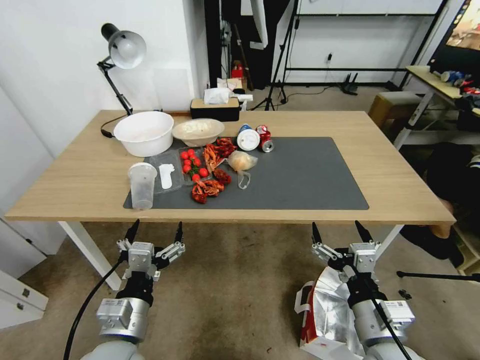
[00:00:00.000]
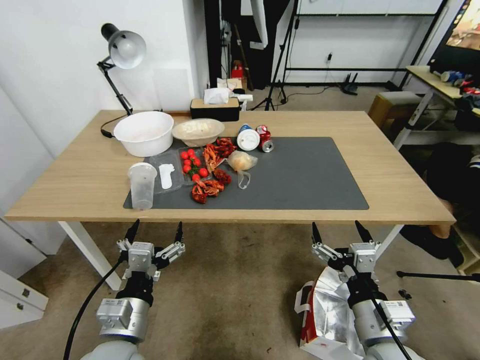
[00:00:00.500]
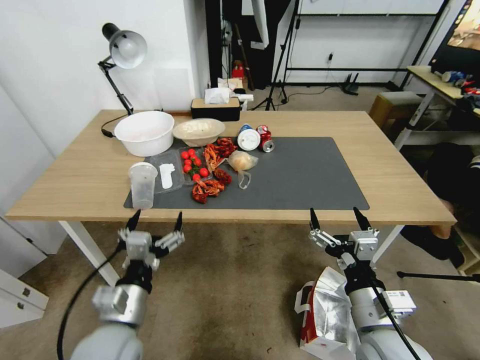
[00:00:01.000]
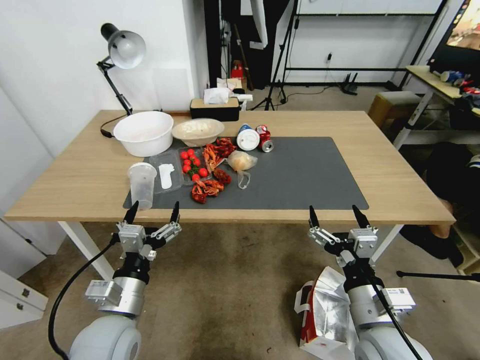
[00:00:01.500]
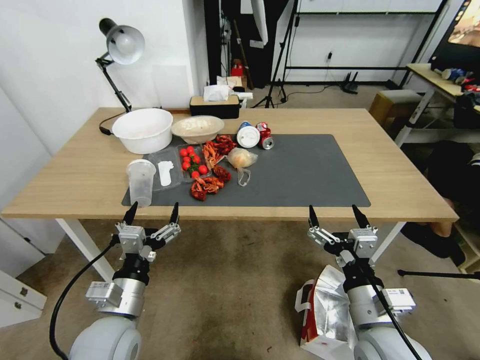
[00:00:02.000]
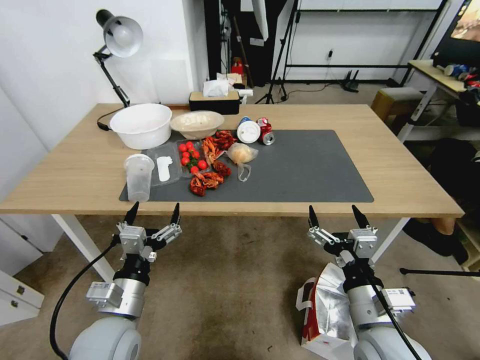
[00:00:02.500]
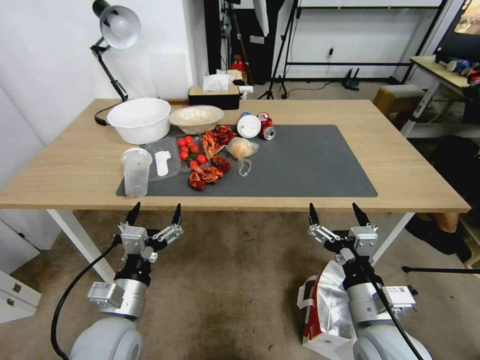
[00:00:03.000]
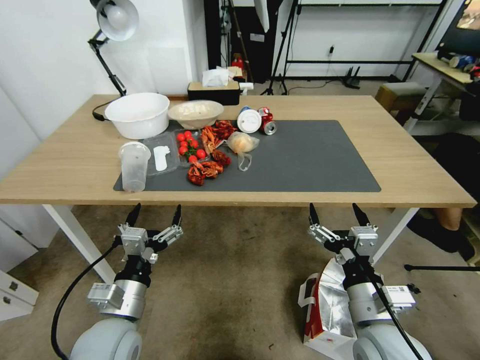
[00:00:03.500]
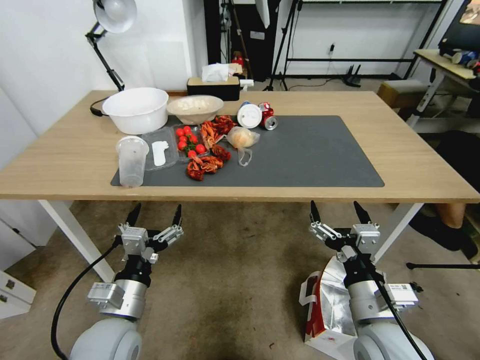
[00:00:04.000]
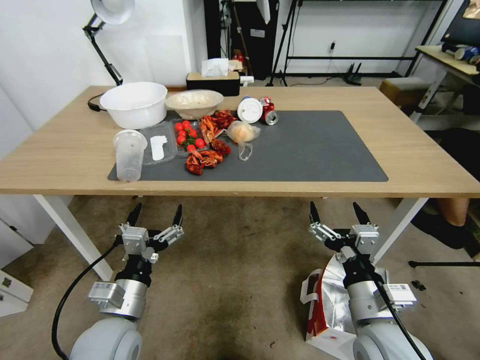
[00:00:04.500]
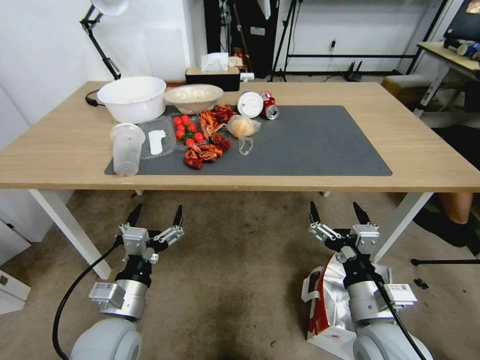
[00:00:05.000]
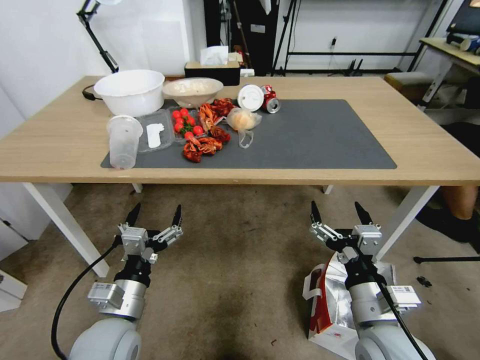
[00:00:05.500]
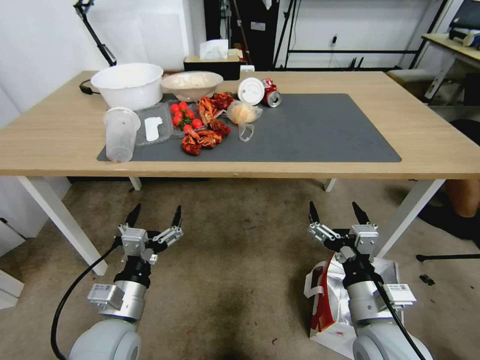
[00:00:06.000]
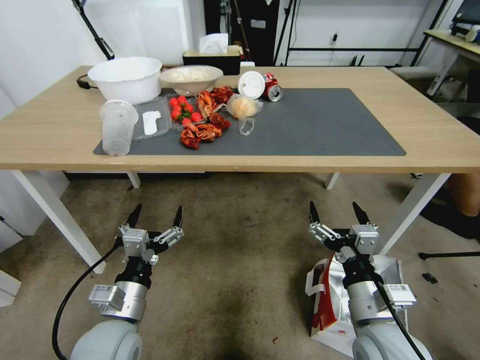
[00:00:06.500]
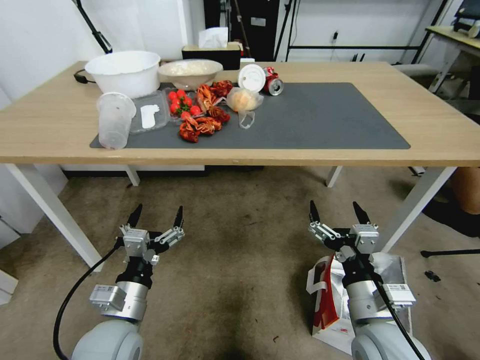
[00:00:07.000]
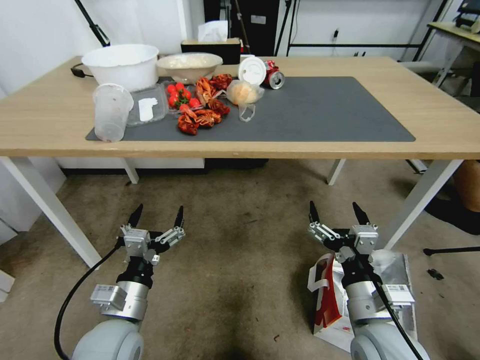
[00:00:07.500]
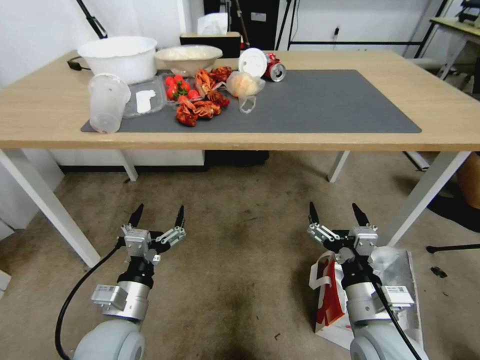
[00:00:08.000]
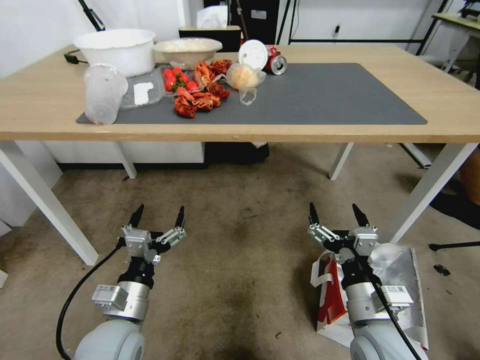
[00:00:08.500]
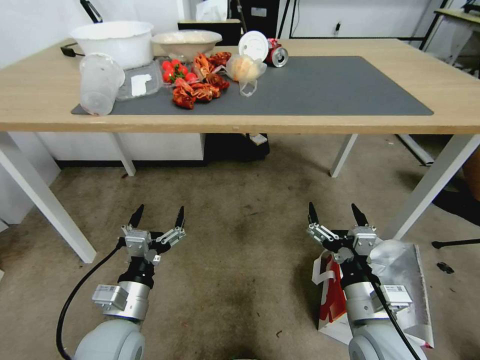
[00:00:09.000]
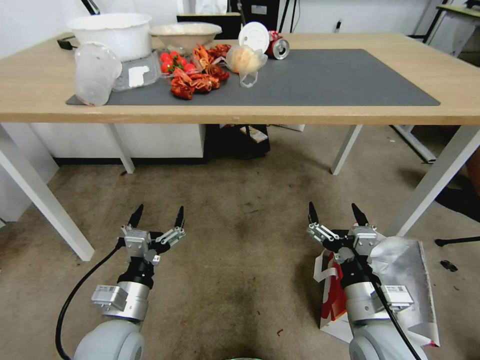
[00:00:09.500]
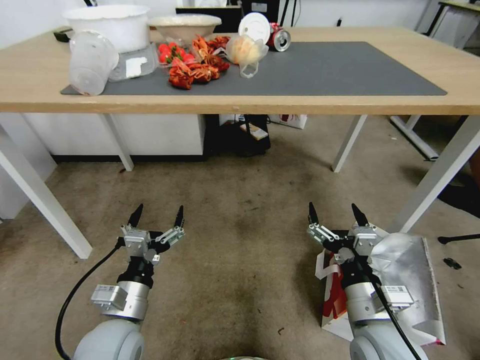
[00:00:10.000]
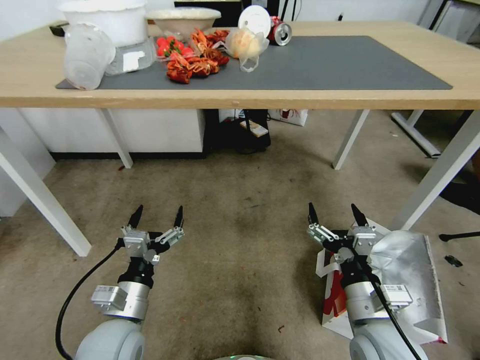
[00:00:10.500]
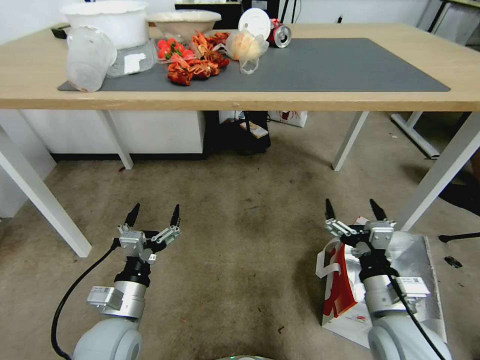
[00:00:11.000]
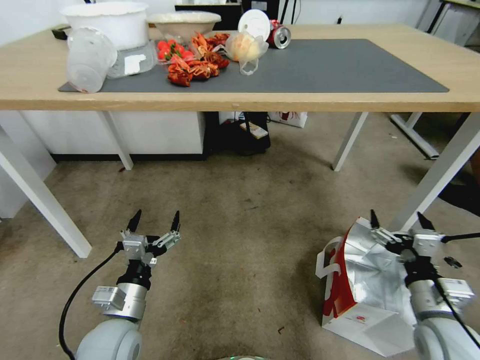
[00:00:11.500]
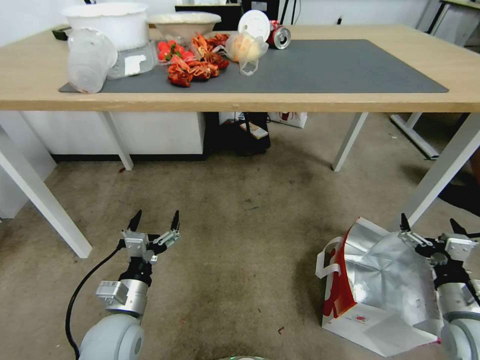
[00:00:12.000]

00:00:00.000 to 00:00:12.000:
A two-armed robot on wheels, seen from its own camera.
Task of the whole recording: Pick up the food delivery bag from the floor and place it on the table.
00:00:10.000 to 00:00:12.000: The right gripper shifts roughly 20 cm to the right.

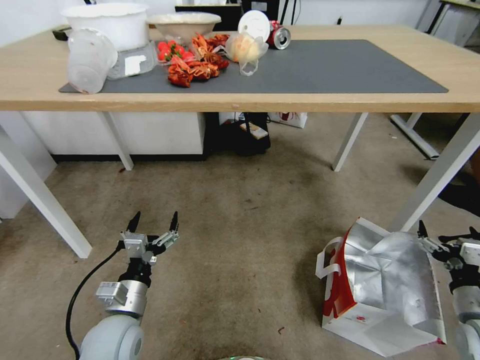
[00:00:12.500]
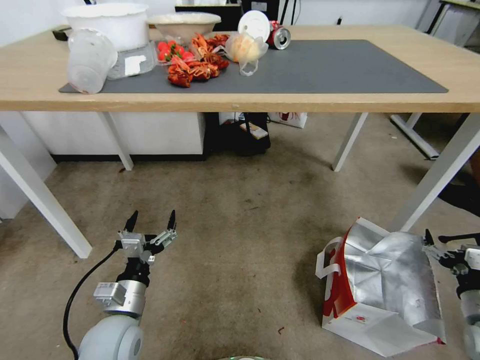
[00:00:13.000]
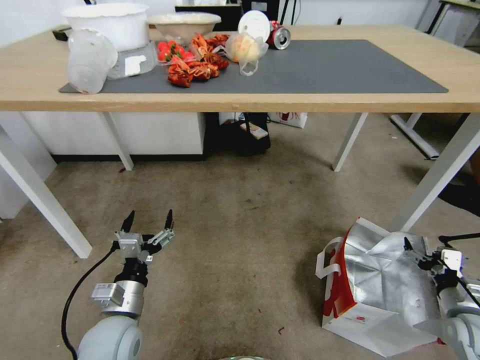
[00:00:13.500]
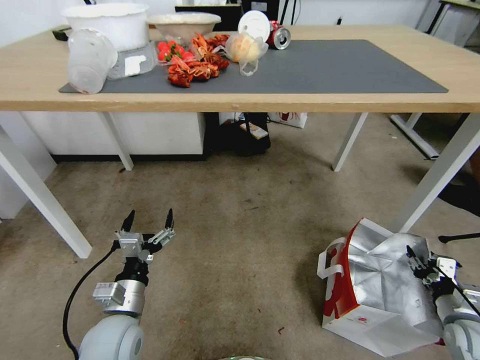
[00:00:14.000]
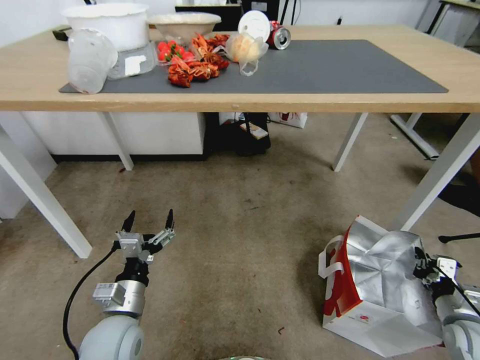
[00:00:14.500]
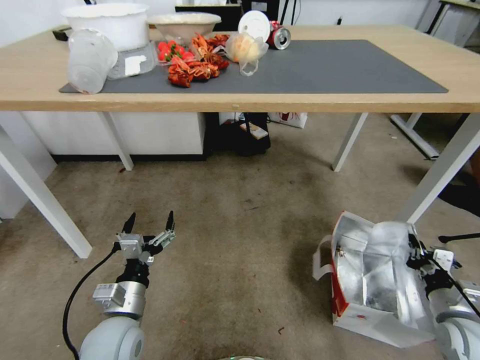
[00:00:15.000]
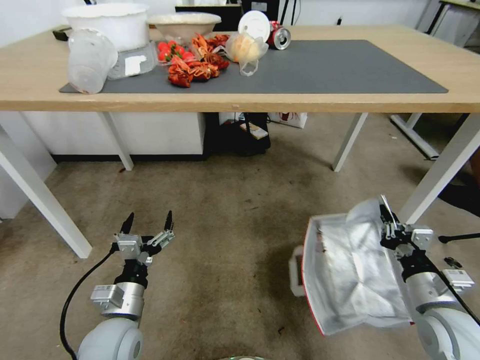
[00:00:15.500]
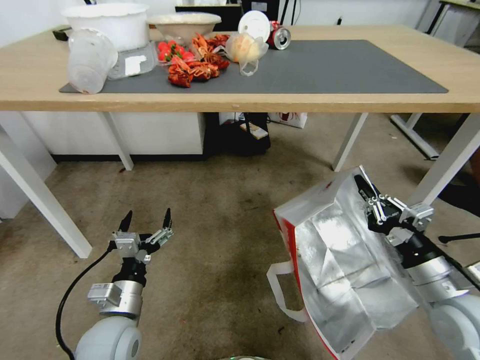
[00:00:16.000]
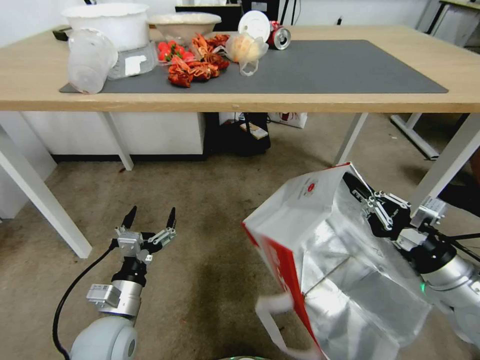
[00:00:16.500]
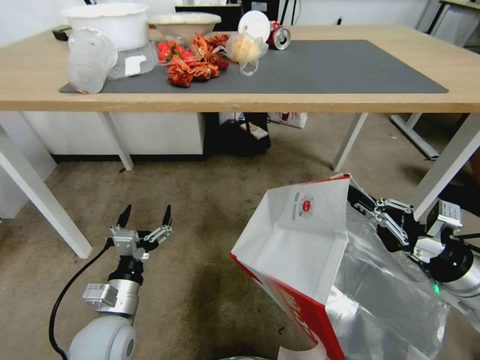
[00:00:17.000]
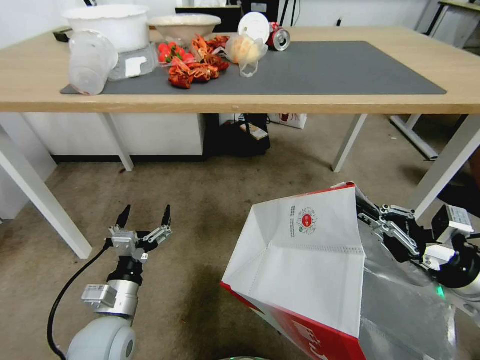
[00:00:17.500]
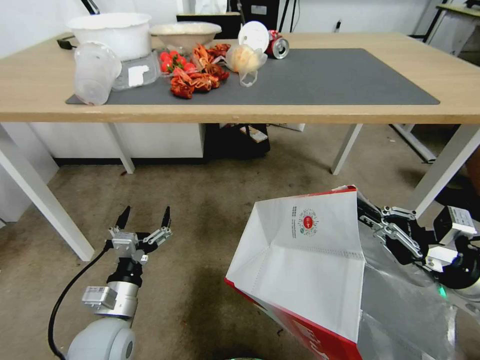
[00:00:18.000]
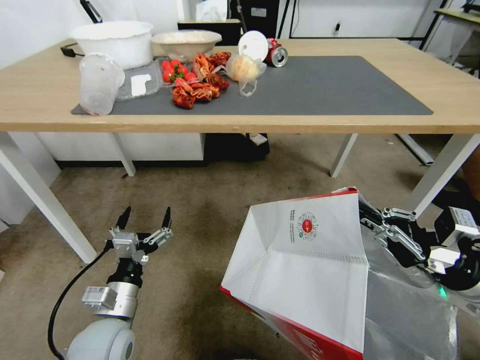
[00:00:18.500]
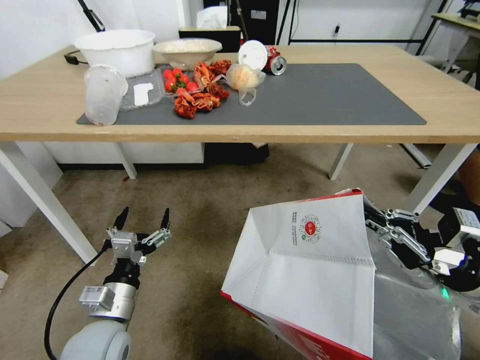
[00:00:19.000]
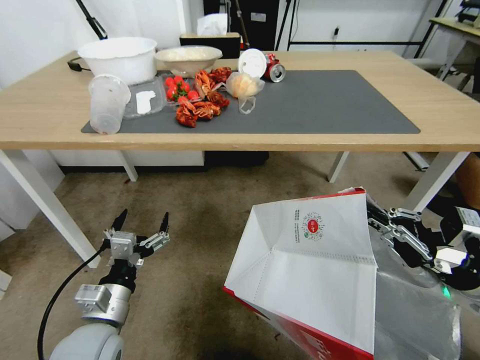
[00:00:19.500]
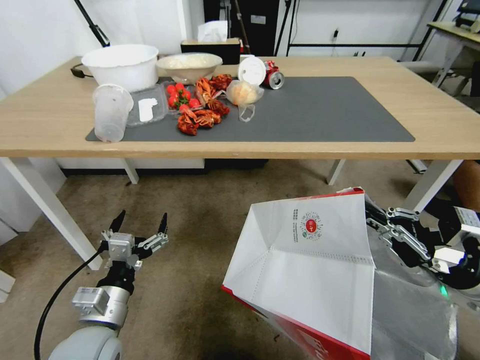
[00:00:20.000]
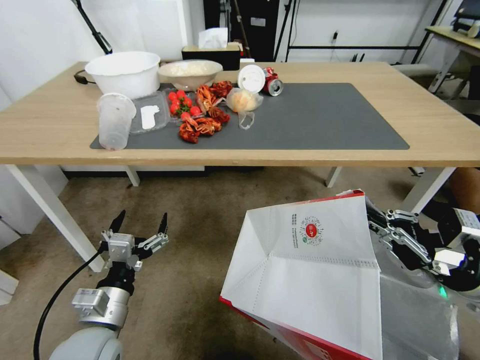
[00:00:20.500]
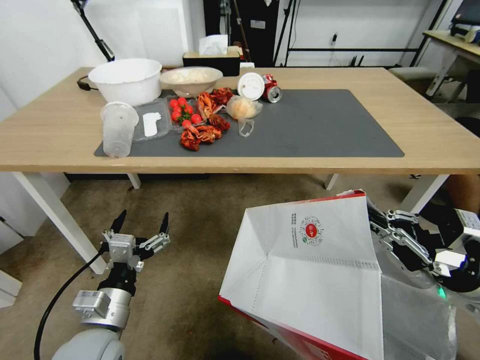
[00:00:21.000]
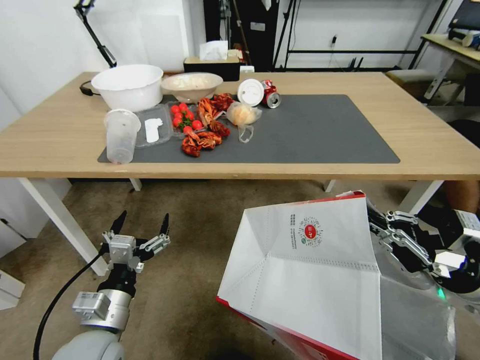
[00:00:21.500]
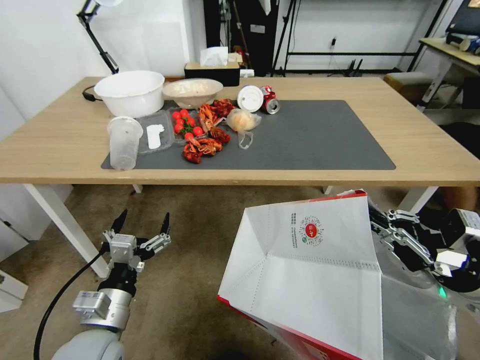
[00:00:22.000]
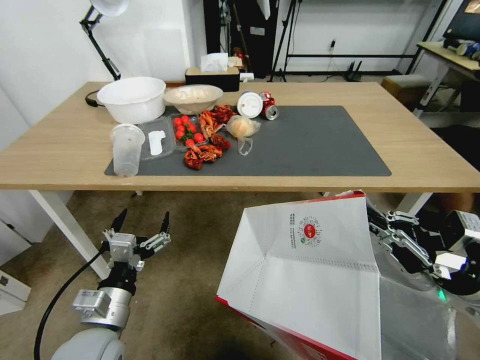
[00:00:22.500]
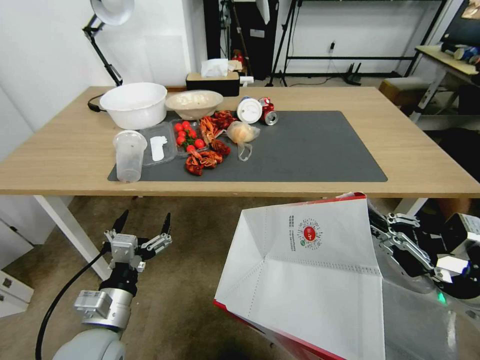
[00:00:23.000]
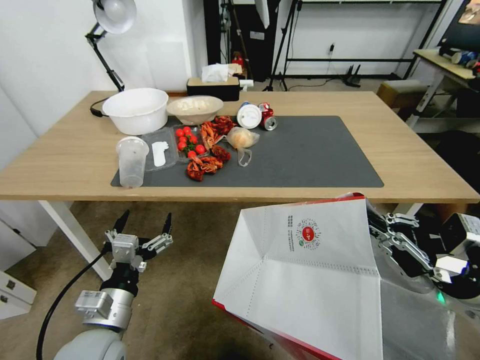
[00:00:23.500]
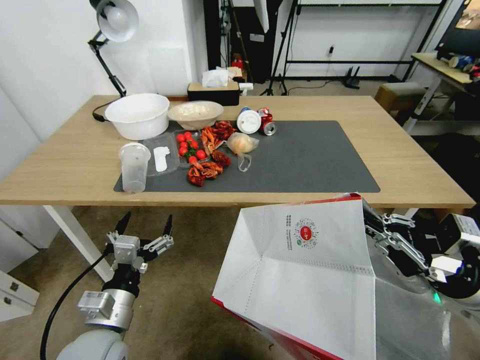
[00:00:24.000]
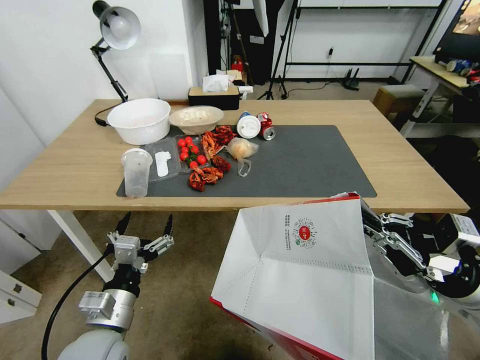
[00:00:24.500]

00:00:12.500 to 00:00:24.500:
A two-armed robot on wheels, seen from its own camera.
Task of the whole recording: Pick up the food delivery bag from the floor and place it on the table.
00:00:12.500 to 00:00:14.500: The right gripper goes roughly 5 cm downward, and closes.
00:00:14.500 to 00:00:16.500: The right gripper heads upward and to the left, covering some 25 cm.

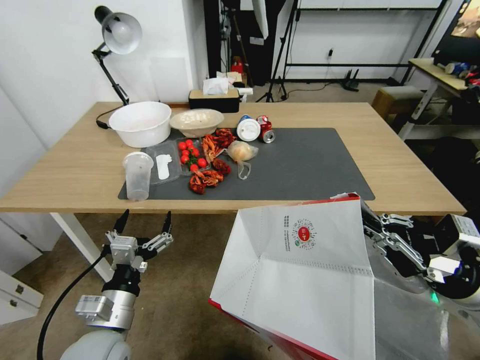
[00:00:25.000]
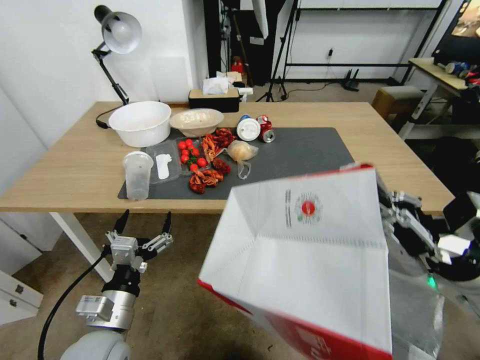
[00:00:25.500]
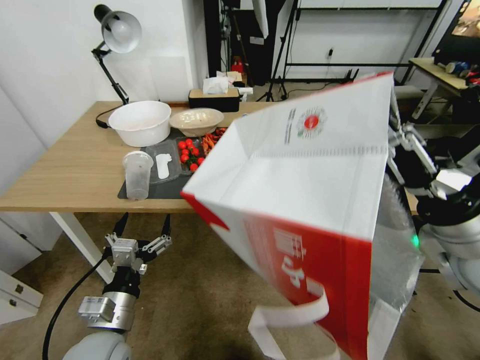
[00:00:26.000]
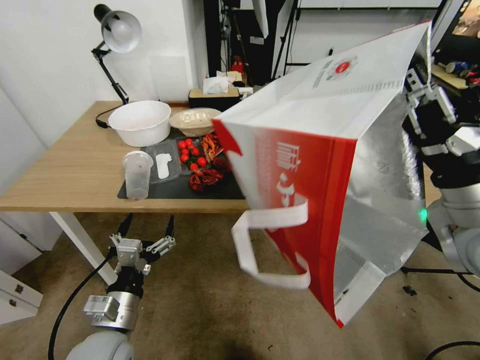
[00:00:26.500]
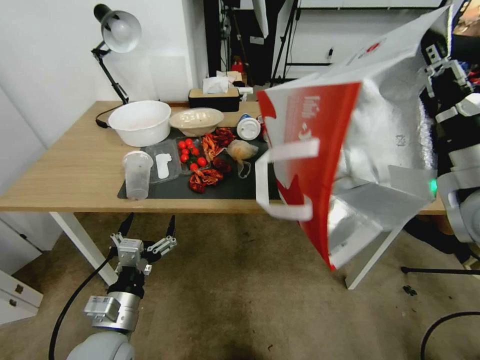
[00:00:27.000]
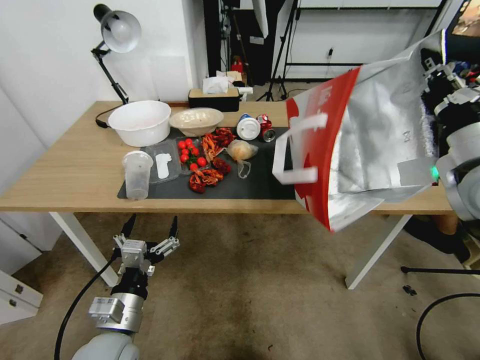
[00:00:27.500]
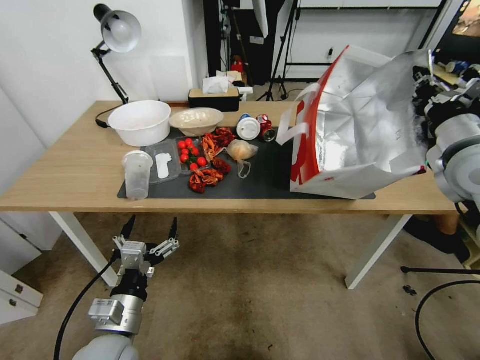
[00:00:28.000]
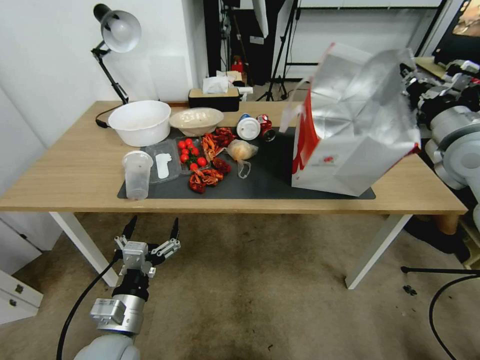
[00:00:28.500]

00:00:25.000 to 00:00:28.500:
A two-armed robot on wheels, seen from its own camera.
Task of the whole recording: Pick up the food delivery bag from the floor and place it on the table.
00:00:25.000 to 00:00:27.000: The right gripper travels upward and forward by roughly 15 cm.
00:00:27.000 to 00:00:28.500: The right gripper travels forward and to the right by roughly 15 cm.
